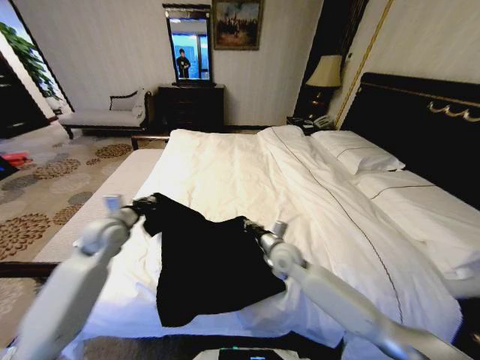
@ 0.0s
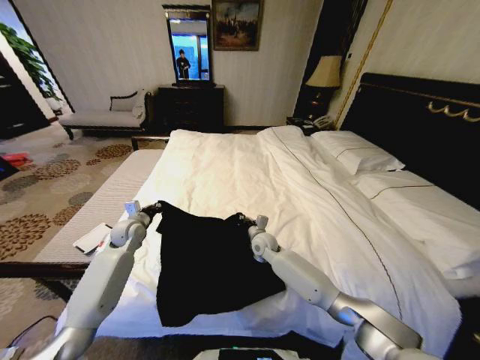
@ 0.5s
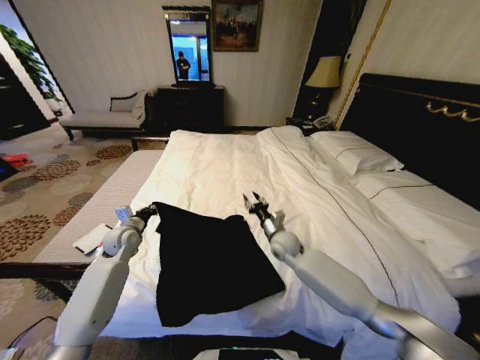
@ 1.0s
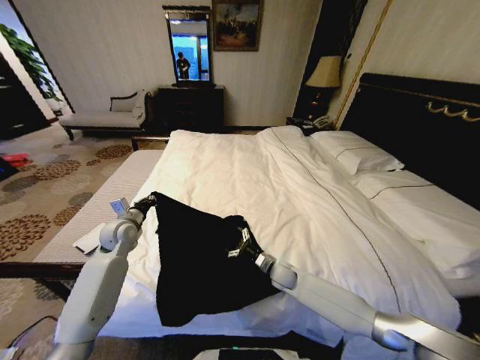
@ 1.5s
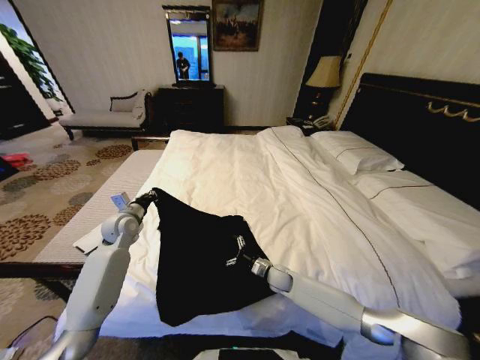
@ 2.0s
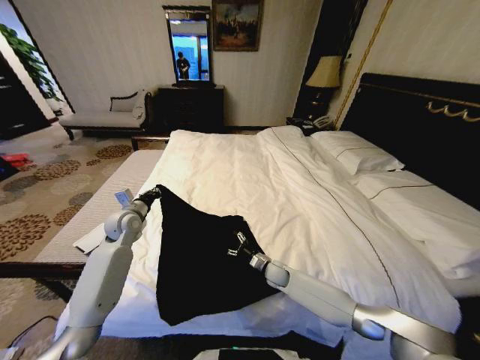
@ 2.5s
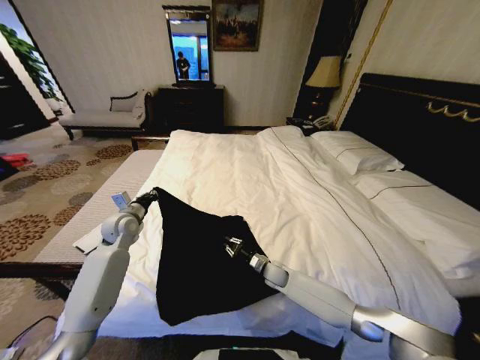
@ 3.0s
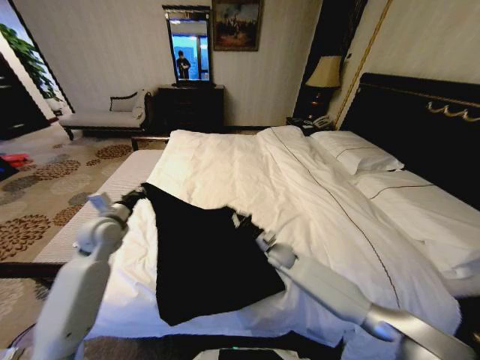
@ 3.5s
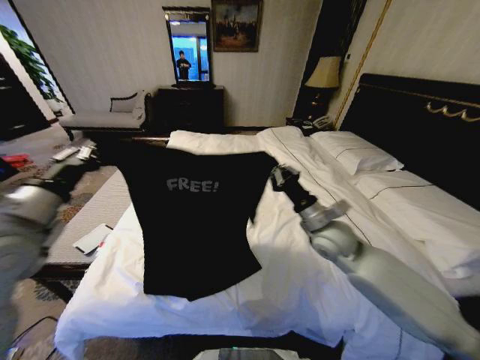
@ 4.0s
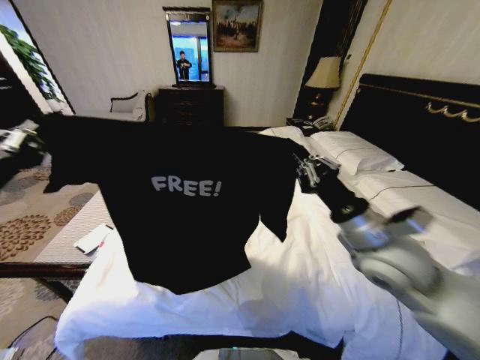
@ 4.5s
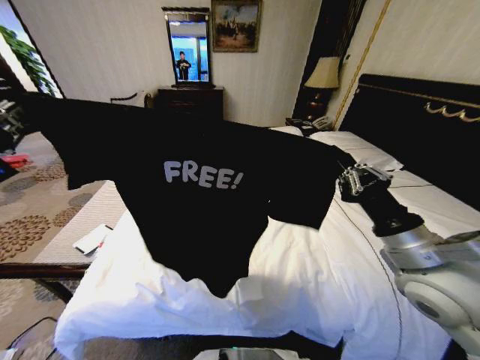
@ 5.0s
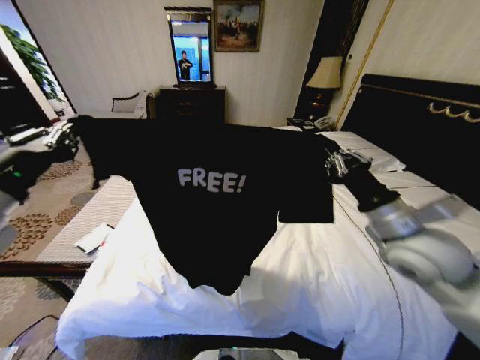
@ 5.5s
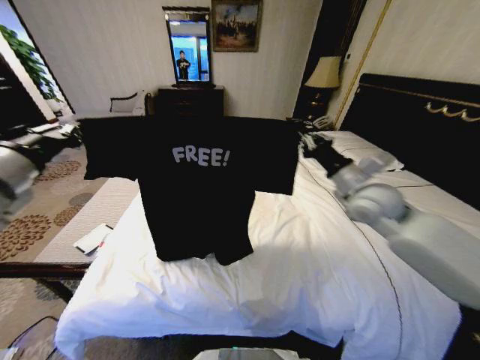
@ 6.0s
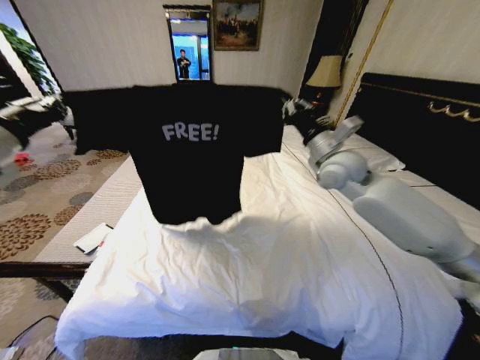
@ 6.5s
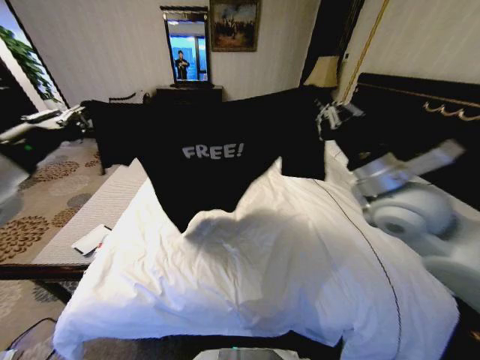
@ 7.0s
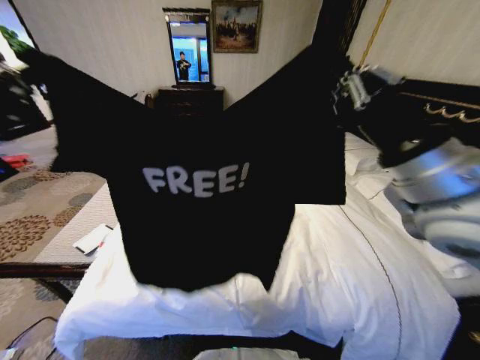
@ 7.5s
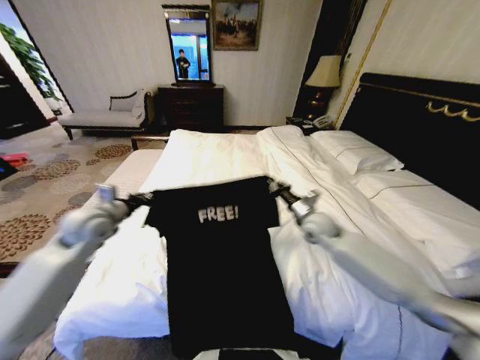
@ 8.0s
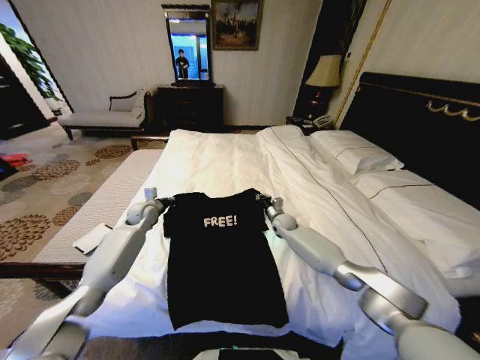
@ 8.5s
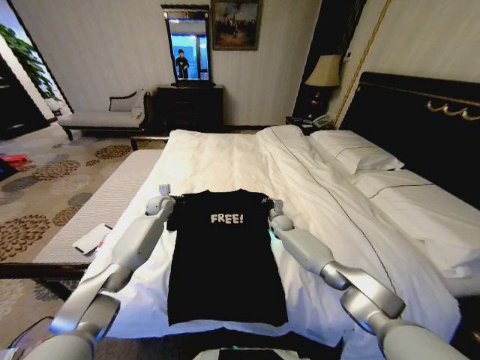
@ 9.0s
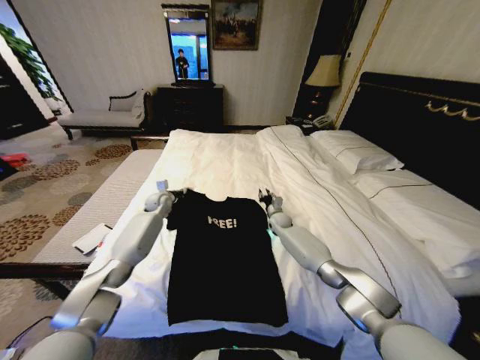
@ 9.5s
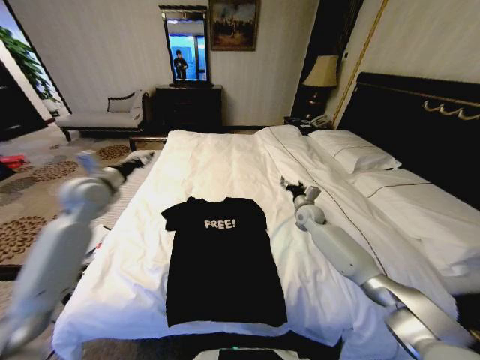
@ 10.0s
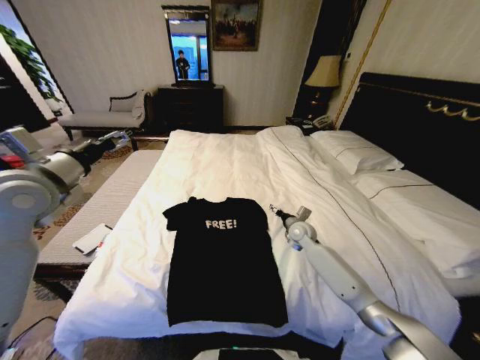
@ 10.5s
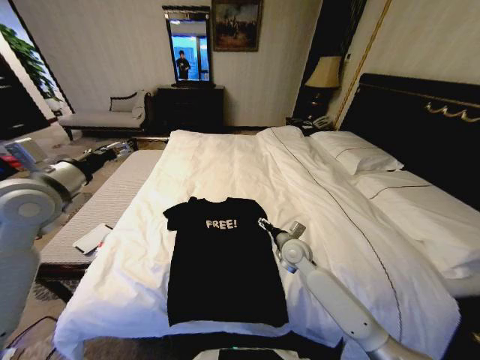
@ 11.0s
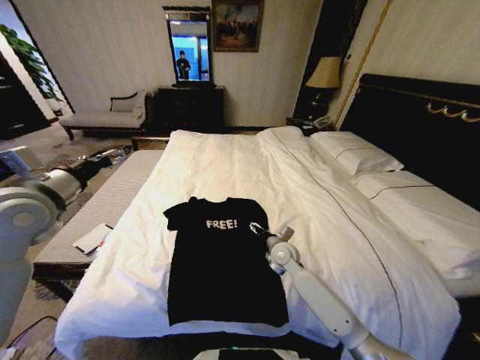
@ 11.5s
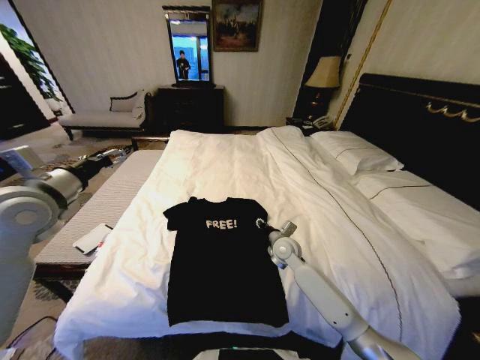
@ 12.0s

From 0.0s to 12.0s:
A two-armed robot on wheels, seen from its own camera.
Task of the whole recording: Fold the clothes on the bed.
From 0.0s to 2.0s: The left gripper is displaced forward by approximately 5 cm. The right gripper moves up and down over some 15 cm, changing direction 2 times, and opens.
From 2.0s to 4.0s: The right gripper shifts approximately 30 cm upward, and closes. The left gripper moves upward and backward, about 25 cm.
From 4.0s to 6.0s: The right gripper heads upward and to the right, covering some 10 cm, and goes backward and returns, about 15 cm each way. Meanwhile the left gripper heads upward, covering approximately 5 cm, and moves about 10 cm backward and comes back.
From 6.0s to 8.0s: The left gripper shifts roughly 20 cm downward and forward. The right gripper is displaced downward by approximately 15 cm.
From 8.0s to 10.0s: The left gripper is displaced upward by approximately 5 cm, reaches approximately 20 cm forward, then returns, and opens. The right gripper moves forward, about 10 cm, goes downward and returns, approximately 15 cm each way, and opens its fingers.
From 10.0s to 12.0s: The left gripper goes roughly 10 cm backward and upward; the right gripper shifts some 15 cm backward and to the left, and closes up.

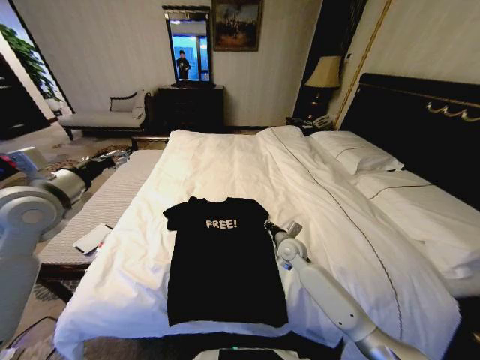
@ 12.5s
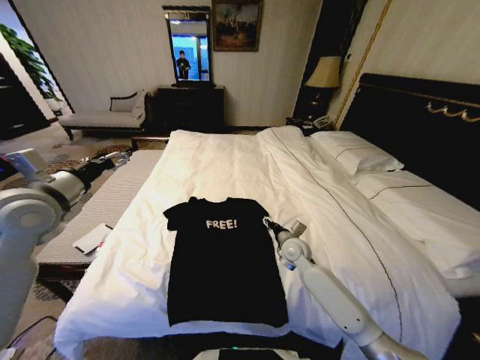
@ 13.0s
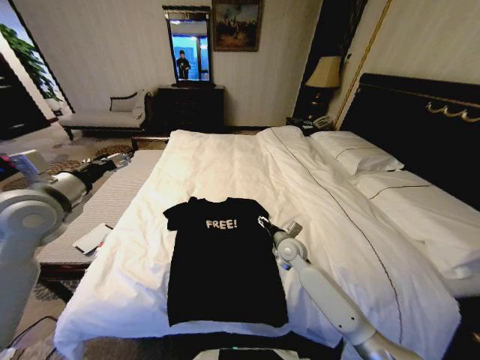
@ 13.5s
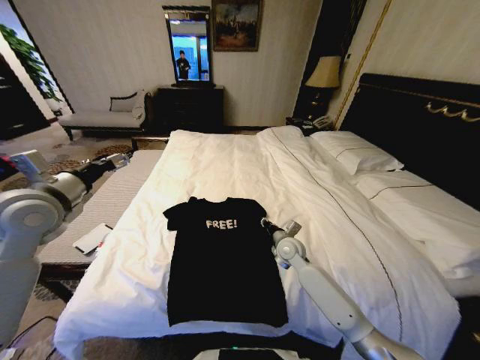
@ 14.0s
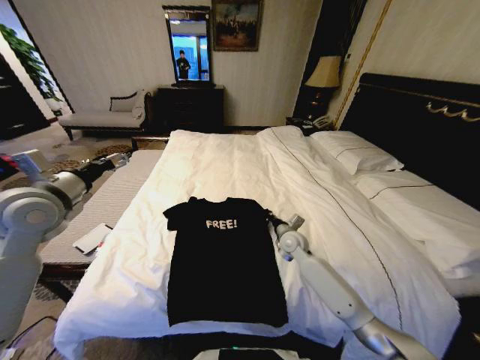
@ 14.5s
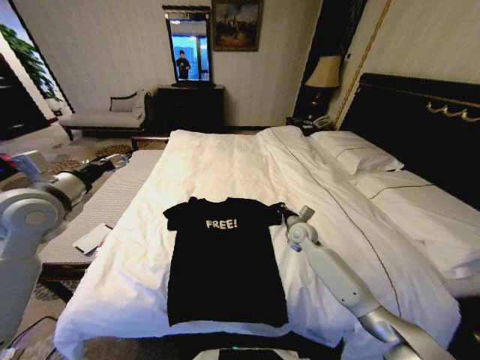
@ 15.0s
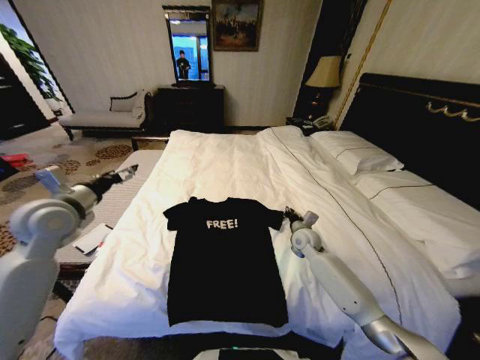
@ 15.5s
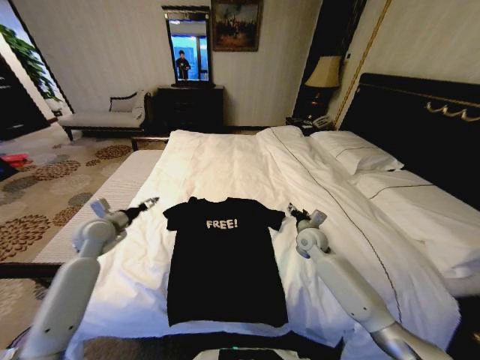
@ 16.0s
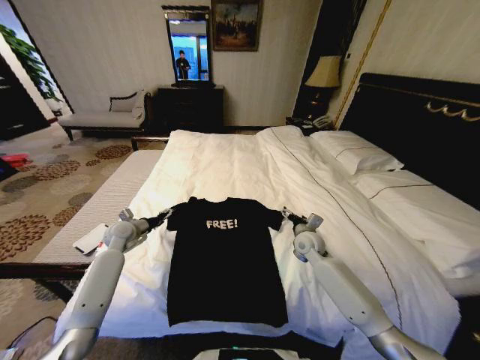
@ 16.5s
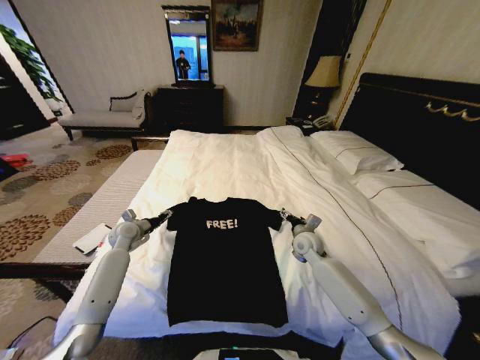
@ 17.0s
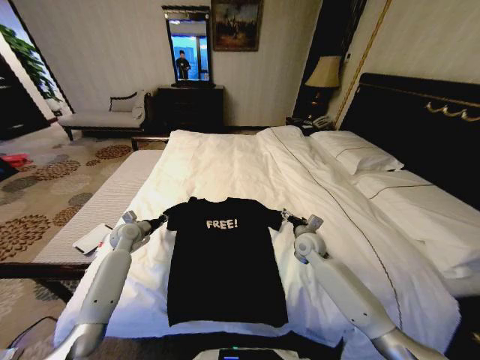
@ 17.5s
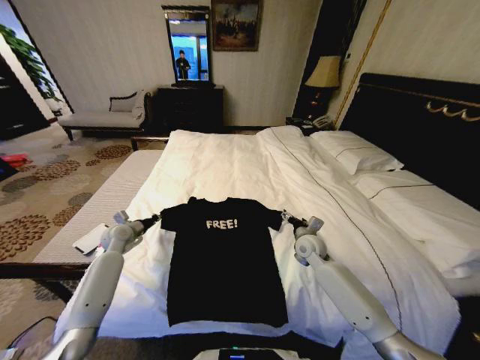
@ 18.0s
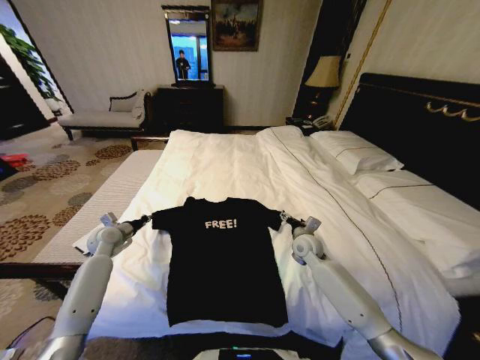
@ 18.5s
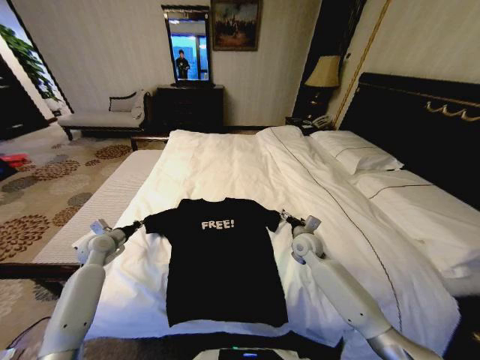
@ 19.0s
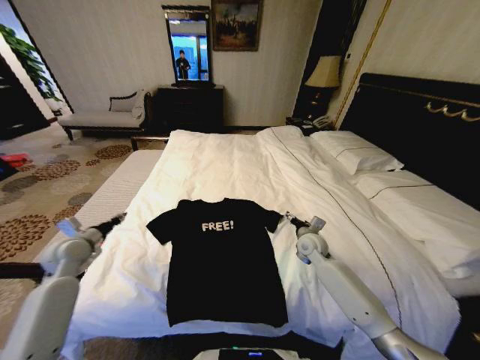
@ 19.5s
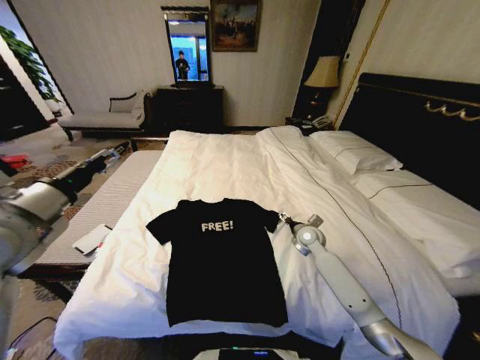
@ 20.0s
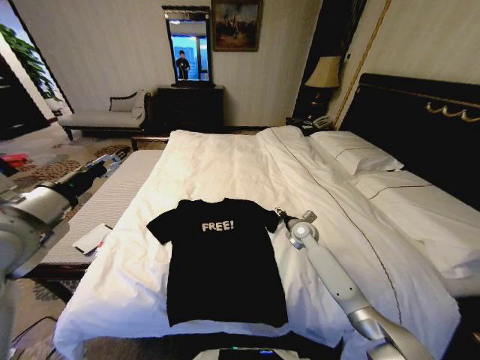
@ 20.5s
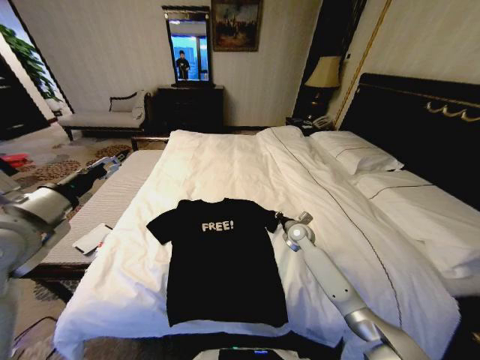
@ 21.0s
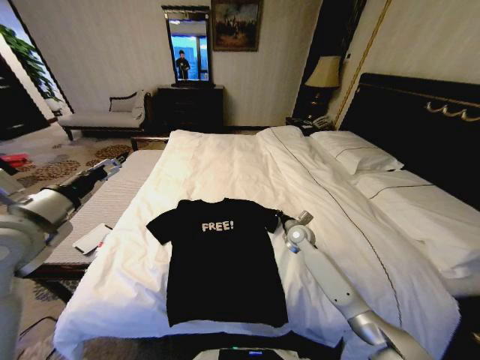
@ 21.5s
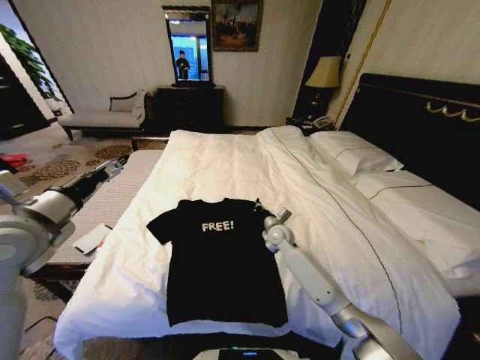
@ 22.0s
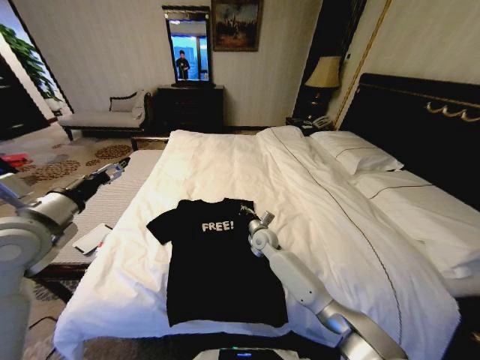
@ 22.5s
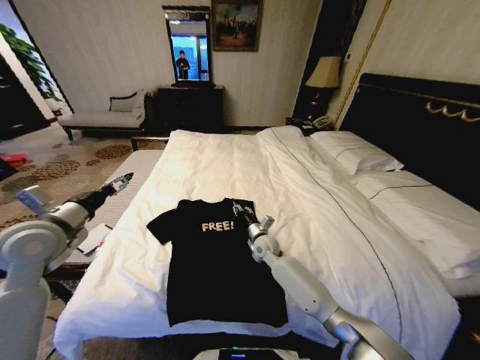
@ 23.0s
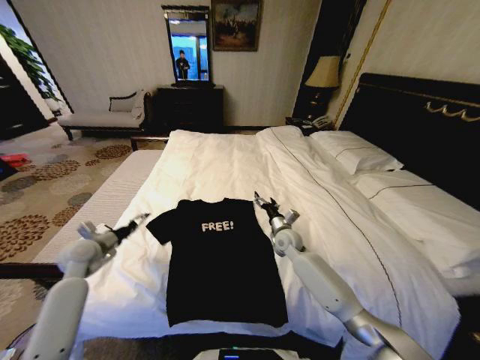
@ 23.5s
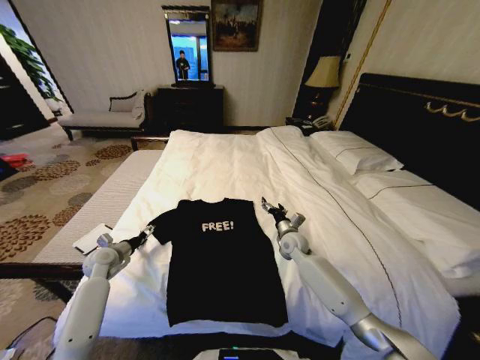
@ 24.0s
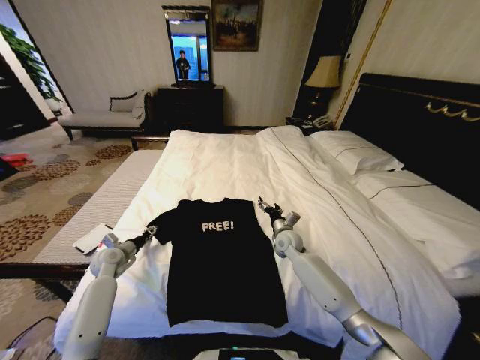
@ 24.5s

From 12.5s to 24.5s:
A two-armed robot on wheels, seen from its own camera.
Task of the whole recording: Fold the clothes on the bed.
From 12.5s to 14.5s: The right gripper opens and closes again.
From 14.5s to 16.5s: The left gripper is displaced downward and forward by some 25 cm. The right gripper moves about 5 cm, and opens up.
From 16.5s to 18.5s: The left gripper changes place by about 5 cm, and closes up.
From 18.5s to 20.5s: The right gripper is displaced forward by about 5 cm, while the left gripper is displaced upward and backward by about 30 cm, and opens up.
From 20.5s to 22.5s: The right gripper goes approximately 15 cm to the left, and closes its fingers.
From 22.5s to 24.5s: The left gripper travels downward by roughly 30 cm. Meanwhile the right gripper goes about 10 cm to the right, and opens.

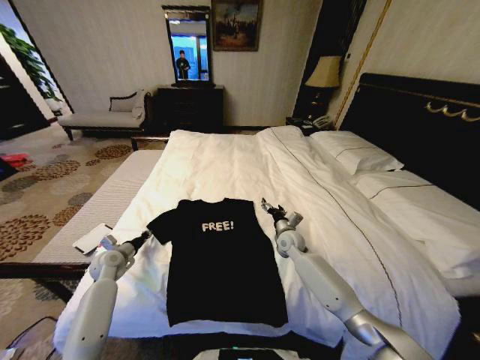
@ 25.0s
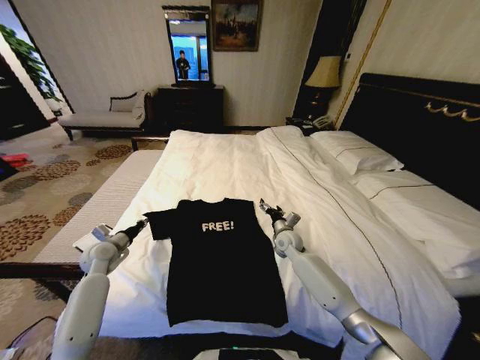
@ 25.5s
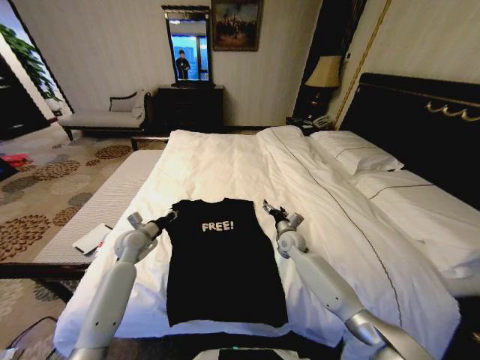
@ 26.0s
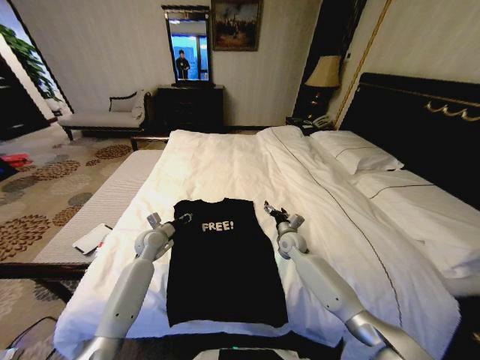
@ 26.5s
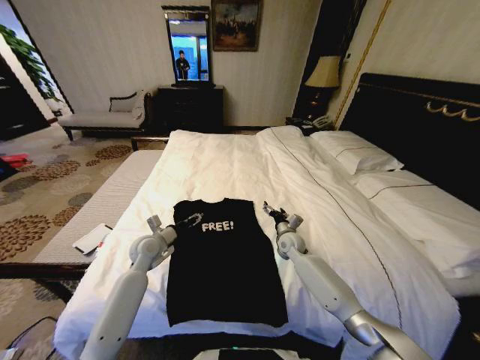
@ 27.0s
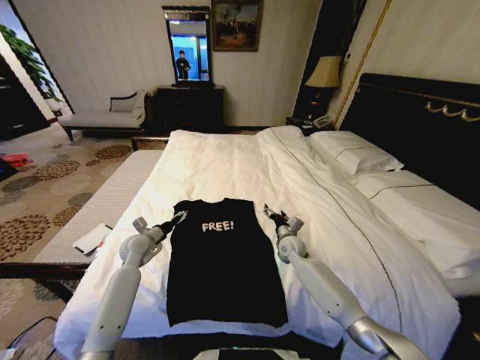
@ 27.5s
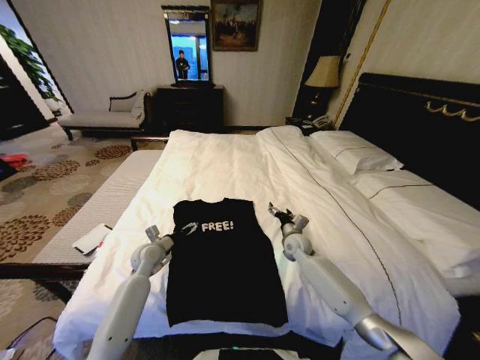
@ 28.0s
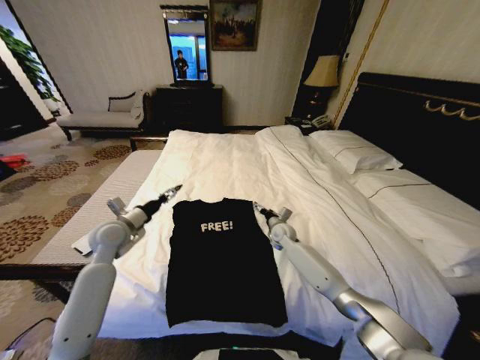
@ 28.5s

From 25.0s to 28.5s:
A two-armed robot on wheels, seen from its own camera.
Task of the whole recording: Fold the clothes on the bed.
From 25.0s to 27.0s: The left gripper shifts roughly 15 cm to the right and upward, and opens its fingers.
From 27.0s to 28.5s: The left gripper travels upward and to the left by some 10 cm, and opens.
